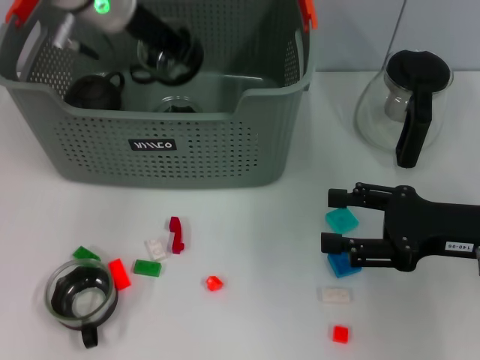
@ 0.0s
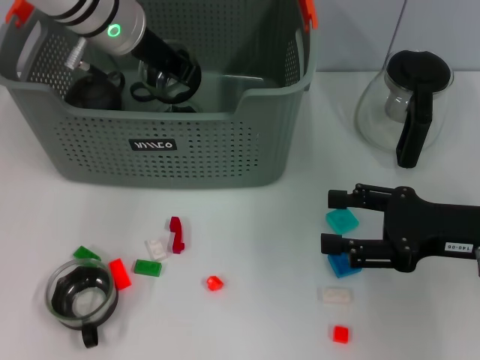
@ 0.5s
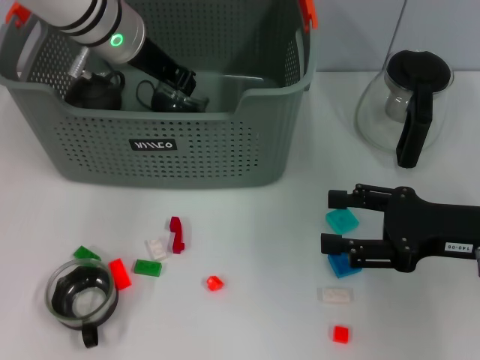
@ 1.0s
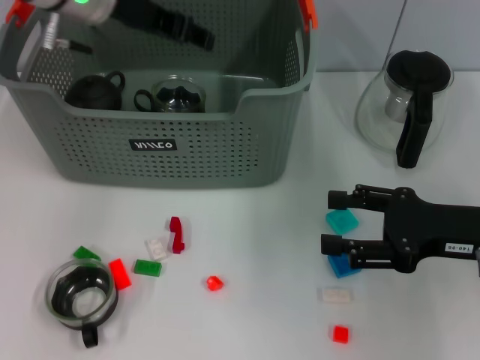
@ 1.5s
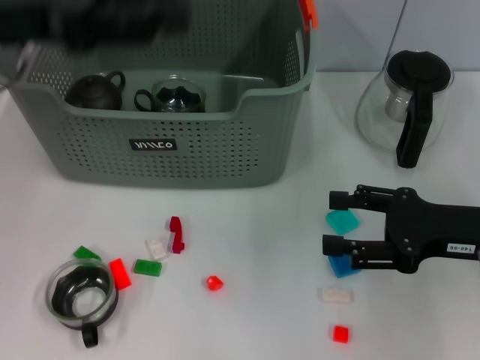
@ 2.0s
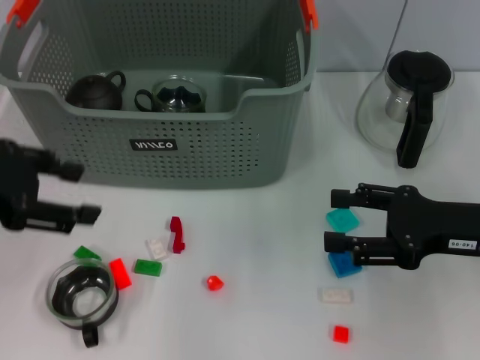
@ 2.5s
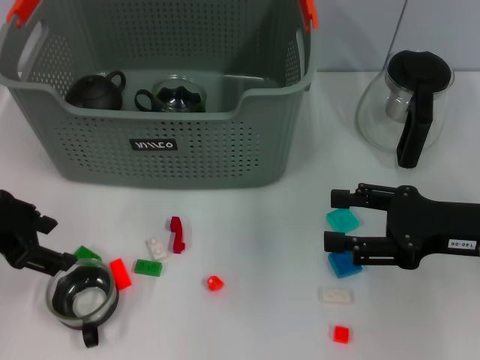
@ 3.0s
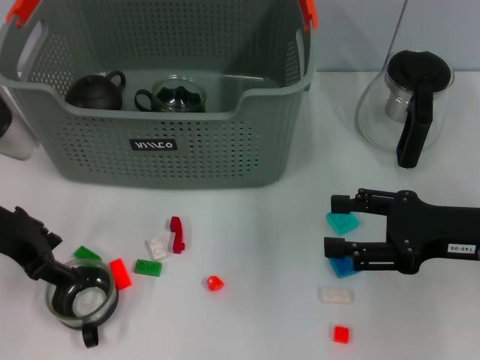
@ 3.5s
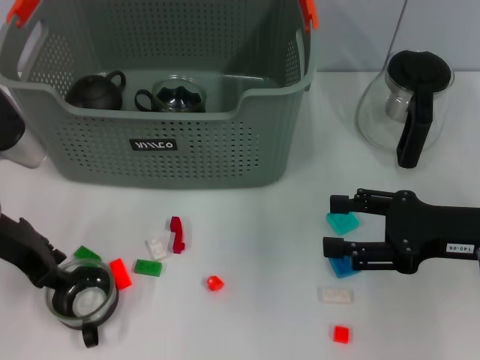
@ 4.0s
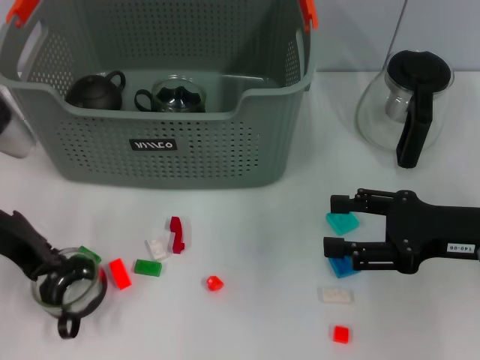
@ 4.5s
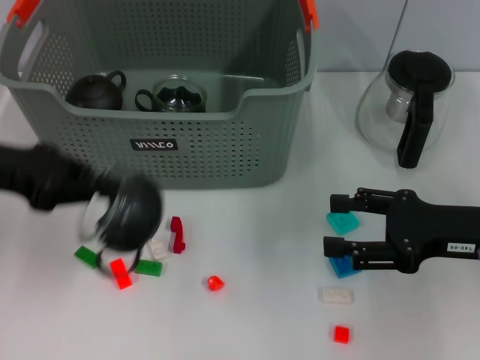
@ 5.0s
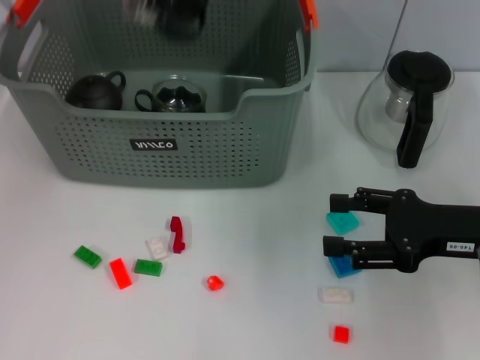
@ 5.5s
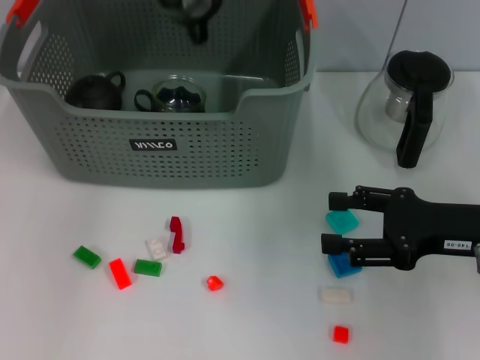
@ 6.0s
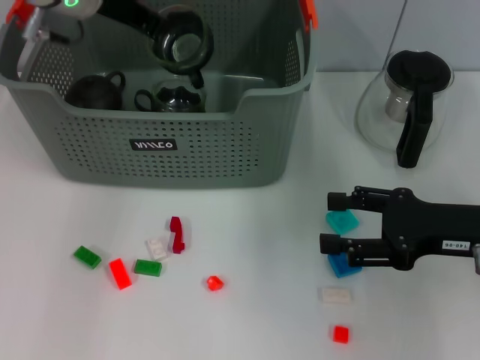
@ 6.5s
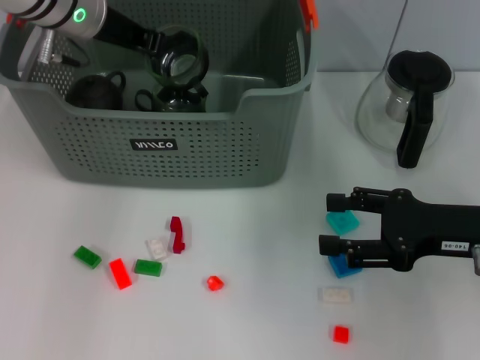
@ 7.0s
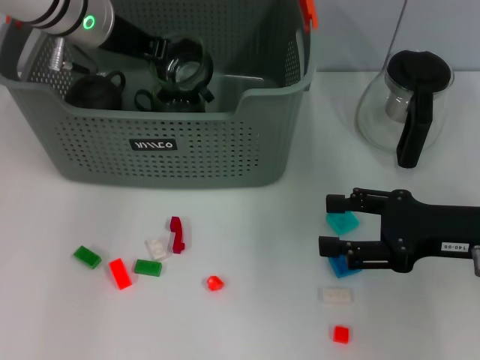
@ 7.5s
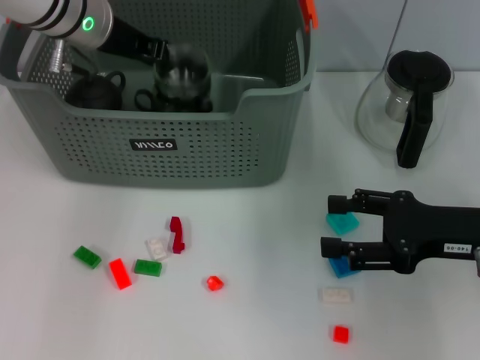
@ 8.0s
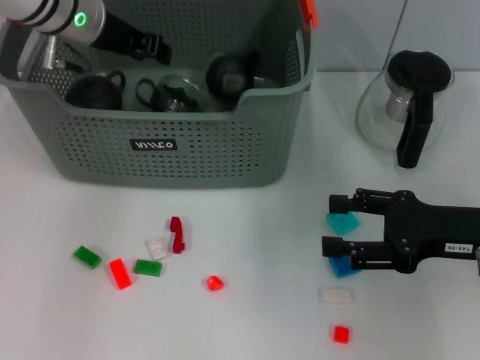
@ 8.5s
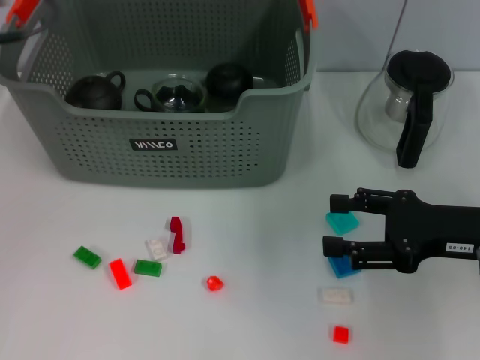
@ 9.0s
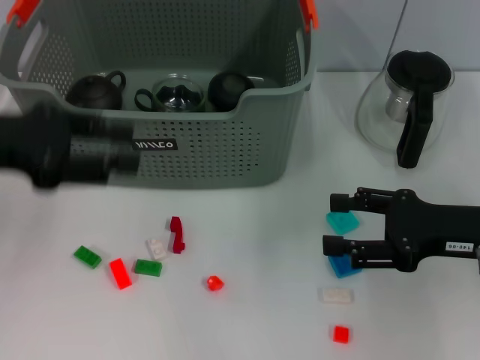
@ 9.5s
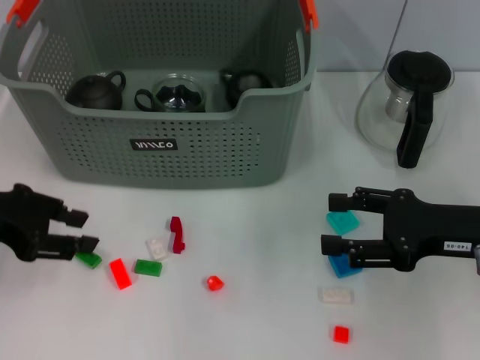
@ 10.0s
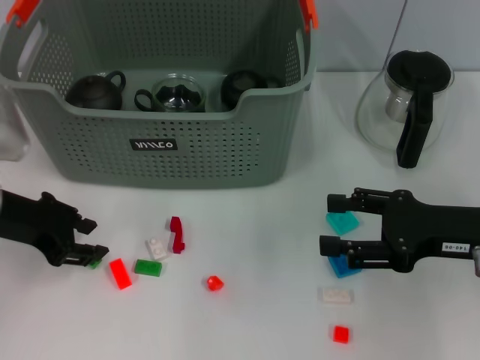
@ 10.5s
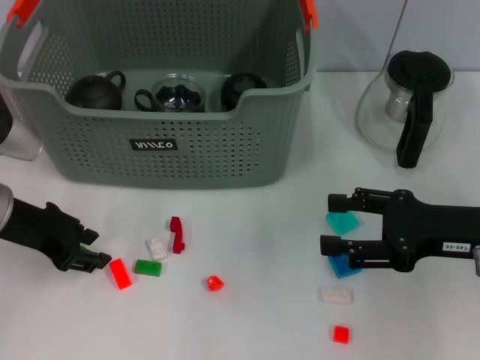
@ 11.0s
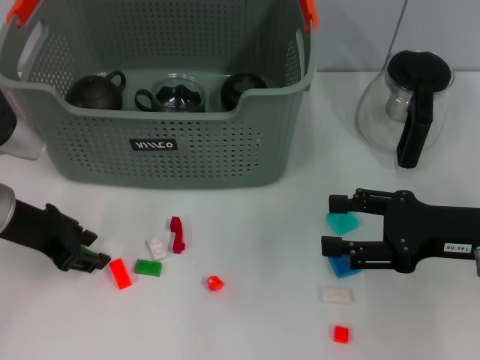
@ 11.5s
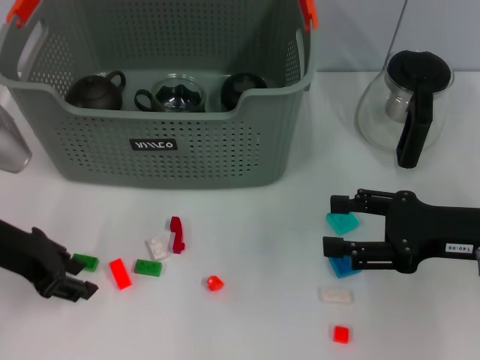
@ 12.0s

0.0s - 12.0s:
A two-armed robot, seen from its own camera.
Task of the whole recording: pick up the teacup on the table and place it into the storage bin, pick up the block on the table and place it into the storage bin.
Step, 2.0s - 4.0s: Grasp the cup with left gripper.
Step, 4.5s - 8.5s: Place the cup in the storage box with left gripper.
0.0s - 2.0s: The left gripper shifts about 15 cm backward and to the left, and opens up.
2.0s - 4.0s: The left gripper moves downward, roughly 15 cm.
4.0s - 6.0s: The left gripper shifts roughly 25 cm upward, forward and to the right, and closes.
6.0s - 8.0s: The left gripper travels downward by approximately 10 cm.
8.0s - 10.0s: The left gripper travels backward and to the left by approximately 20 cm, and opens.
10.0s - 12.0s: The left gripper shifts by some 5 cm.

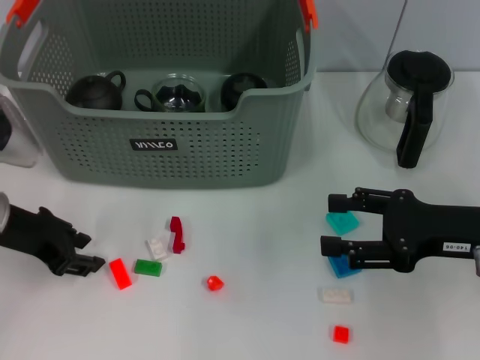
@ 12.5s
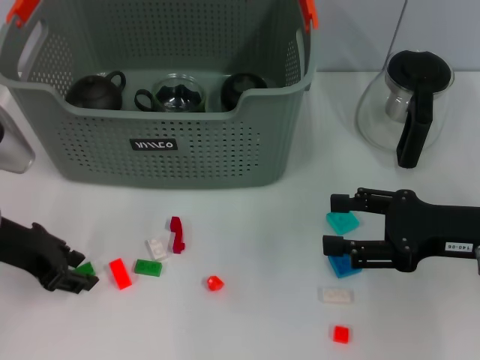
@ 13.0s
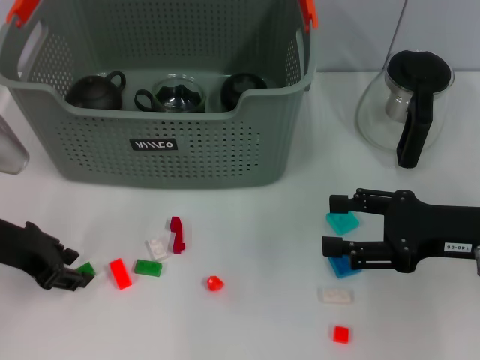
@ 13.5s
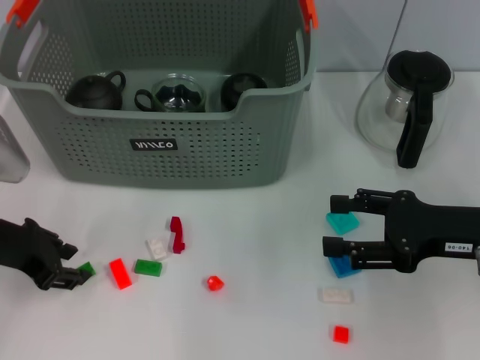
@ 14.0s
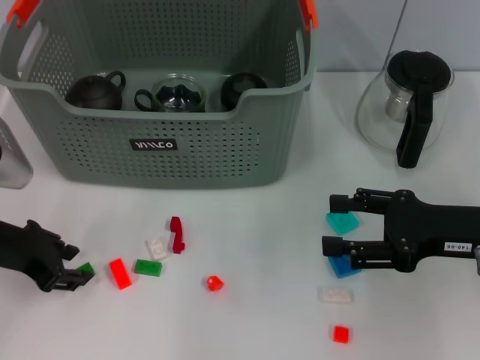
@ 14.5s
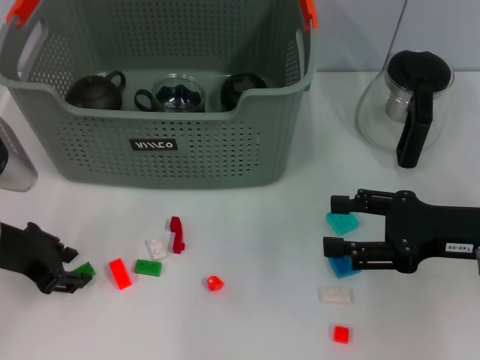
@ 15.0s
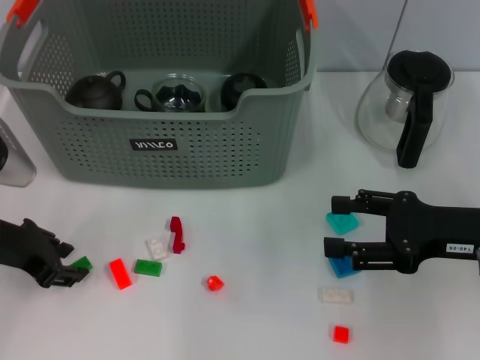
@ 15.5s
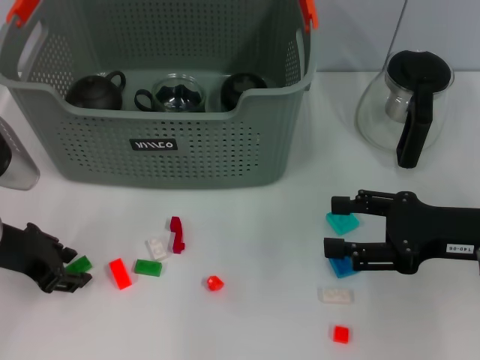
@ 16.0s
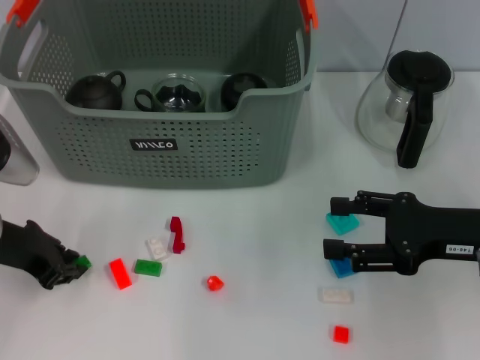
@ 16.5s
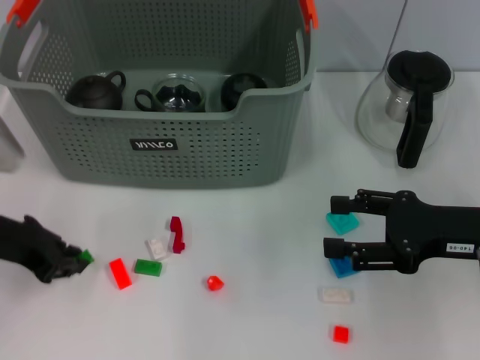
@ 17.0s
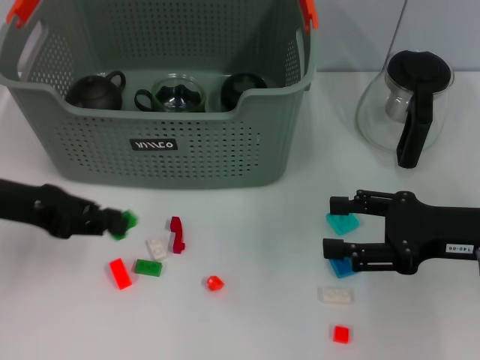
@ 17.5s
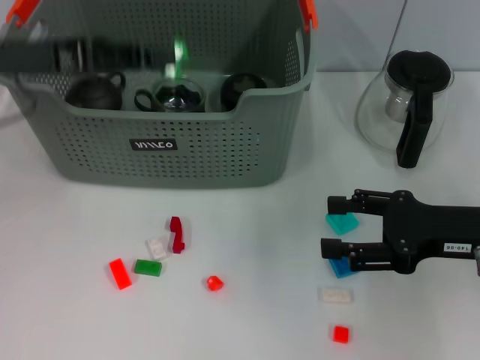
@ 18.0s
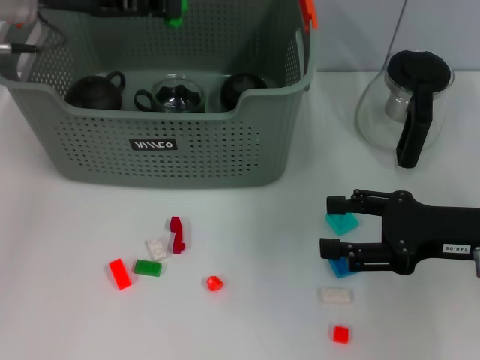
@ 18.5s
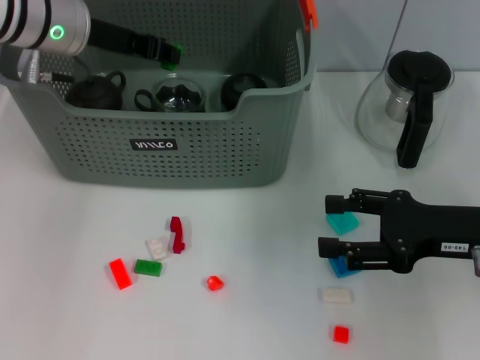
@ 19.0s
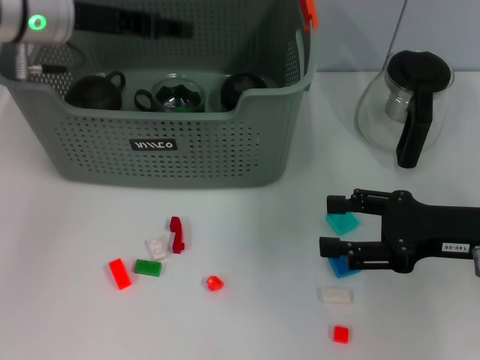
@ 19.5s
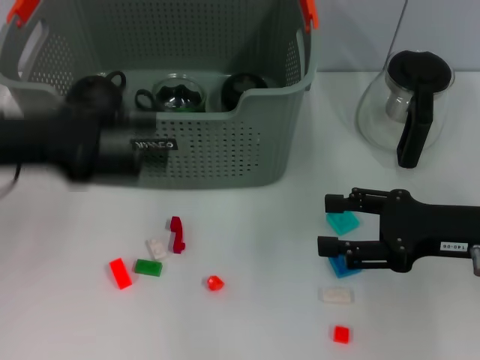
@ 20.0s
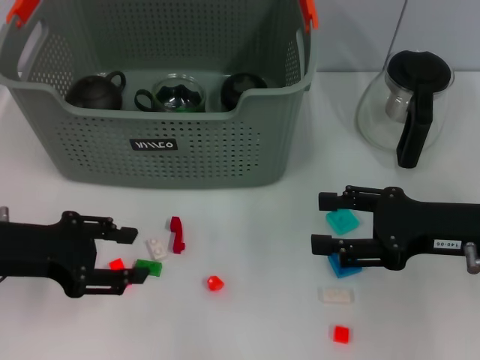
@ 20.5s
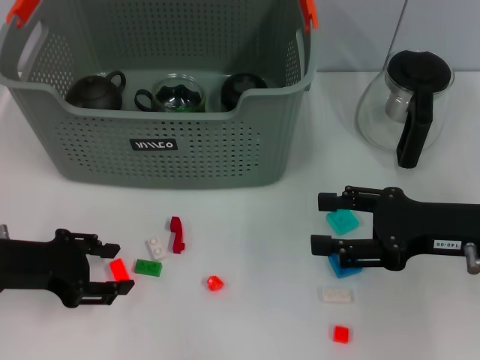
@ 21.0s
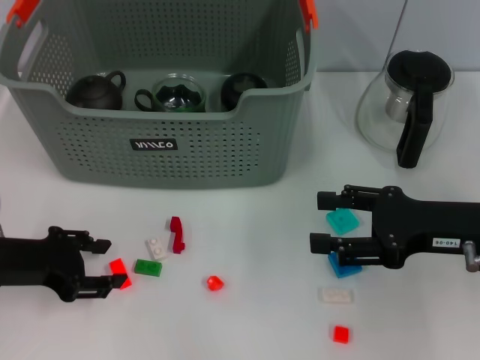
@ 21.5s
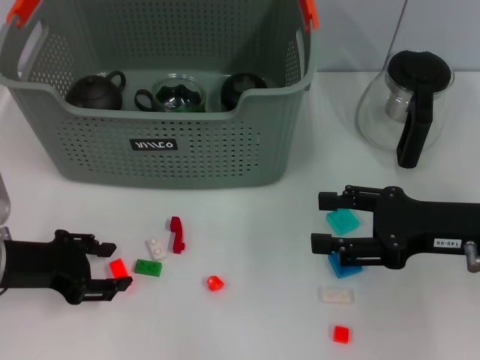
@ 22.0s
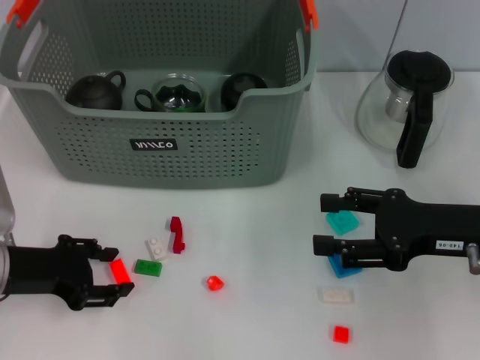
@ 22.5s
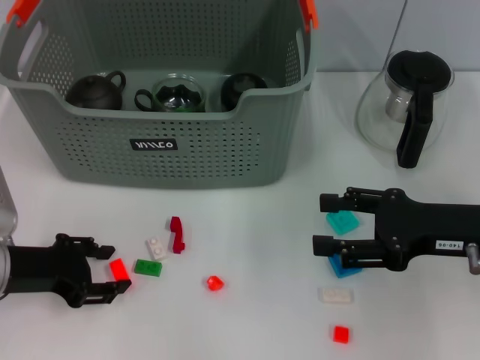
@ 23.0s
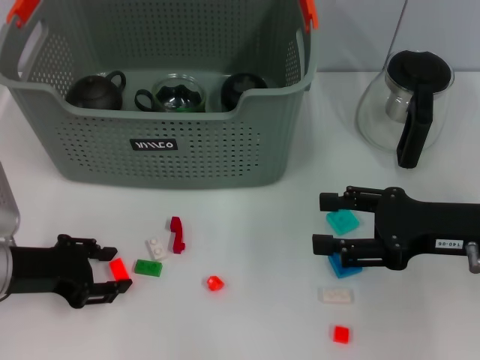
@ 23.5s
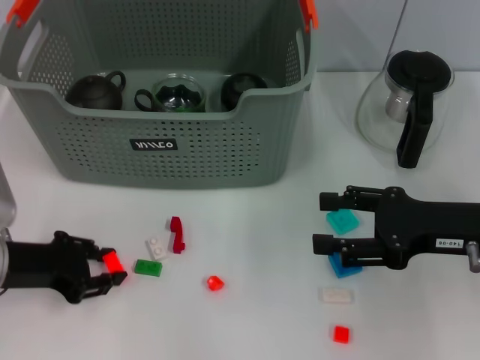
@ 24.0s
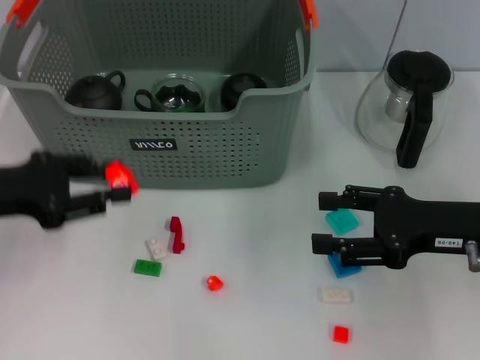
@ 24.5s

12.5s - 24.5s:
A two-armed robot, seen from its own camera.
Task of the whole recording: pick up the teacup on the table and place it into the storage bin, pick up the block on the table and place it into the storage bin.
Step, 12.5s - 16.5s: Grasp the green block with left gripper.
Step, 17.0s - 19.0s: Place the green block in the storage box with left gripper.
Step, 19.5s - 23.5s: Grasp the orange block with left gripper.
12.5s - 14.5s: There are only small adjustments of the grippers.
14.5s - 16.5s: The two grippers keep their place.
16.5s - 18.5s: The left gripper goes about 20 cm upward and forward.
18.5s - 20.5s: The left gripper is displaced backward and downward by roughly 20 cm, and opens its fingers.
20.5s - 22.5s: The left gripper shifts roughly 5 cm downward.
22.5s - 24.5s: The left gripper moves upward, roughly 10 cm.

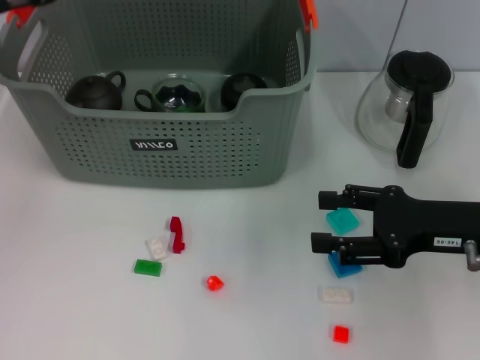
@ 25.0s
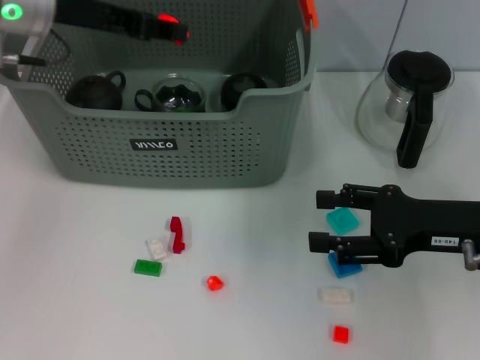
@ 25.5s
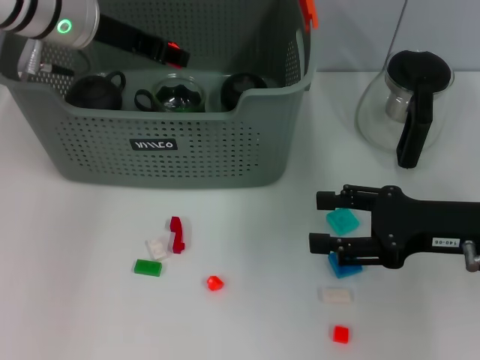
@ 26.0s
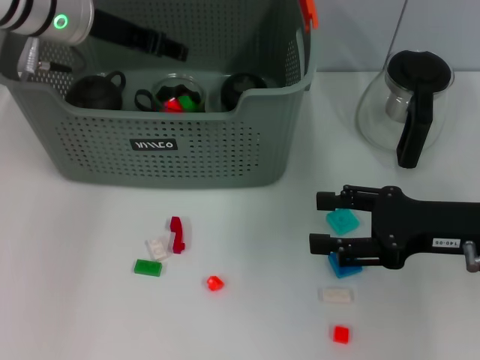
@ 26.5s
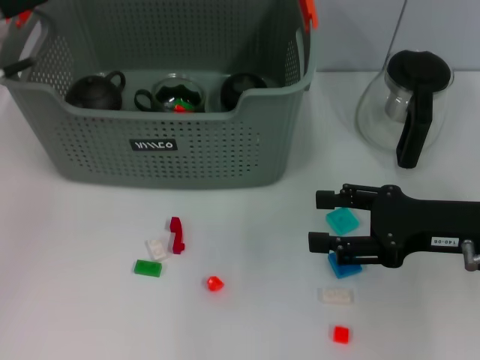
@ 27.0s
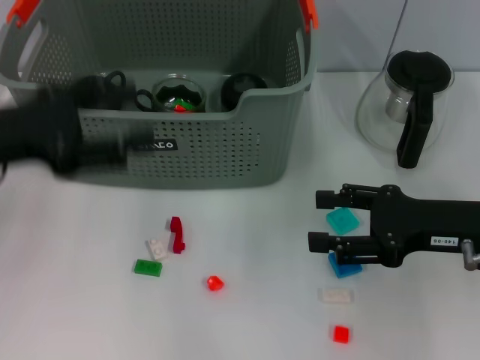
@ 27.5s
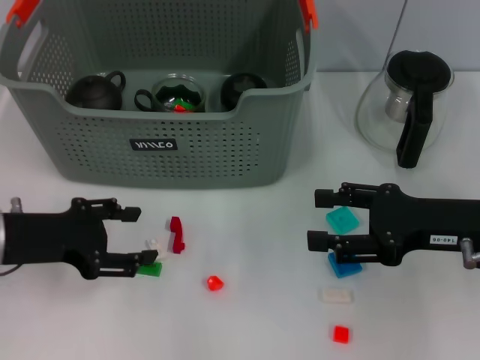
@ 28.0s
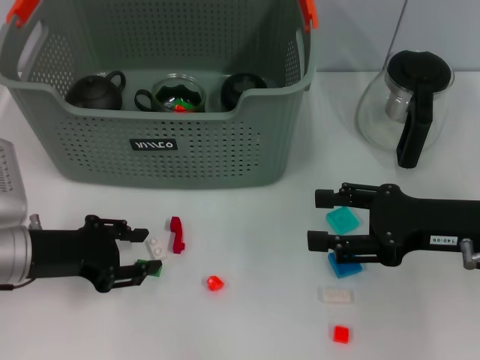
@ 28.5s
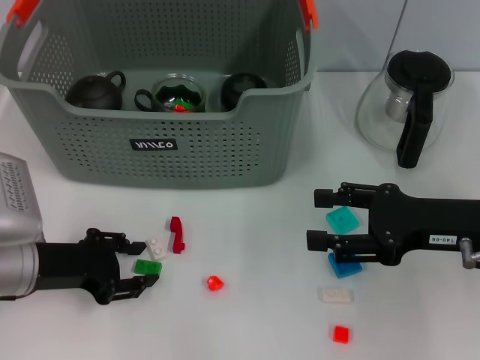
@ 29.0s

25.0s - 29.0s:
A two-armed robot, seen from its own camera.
Task of the whole recording: pick up the teacup on the table and place it into the storage bin, pick up the block on the table and place it into the storage bin.
Step, 25.0s - 26.5s: Place the orange block in the storage box with left gripper.
27.0s - 29.0s: The left gripper goes approximately 20 cm downward and backward.
